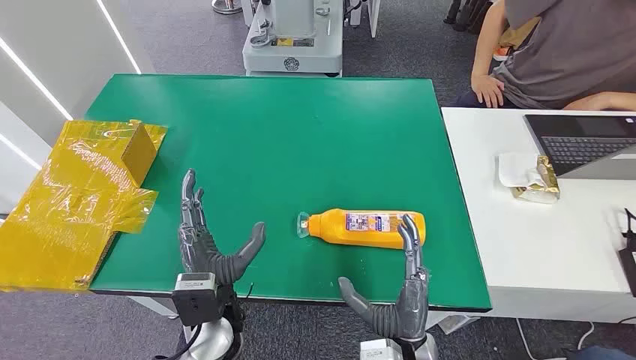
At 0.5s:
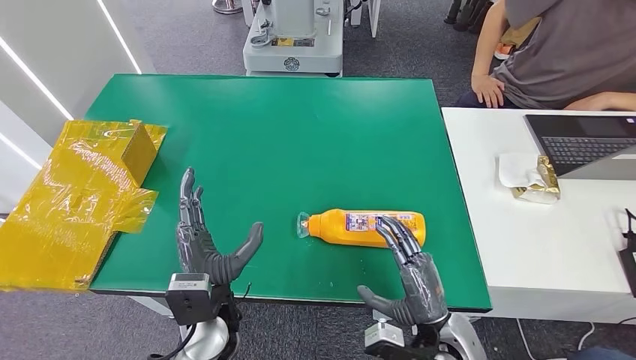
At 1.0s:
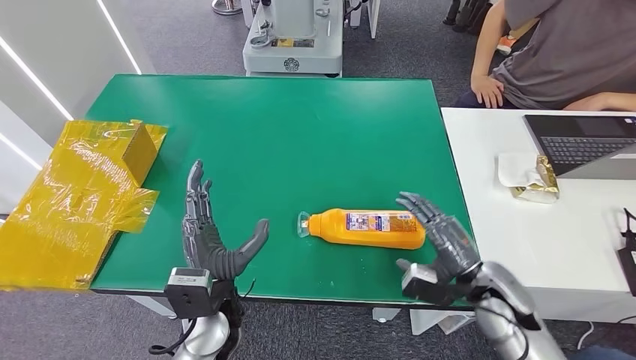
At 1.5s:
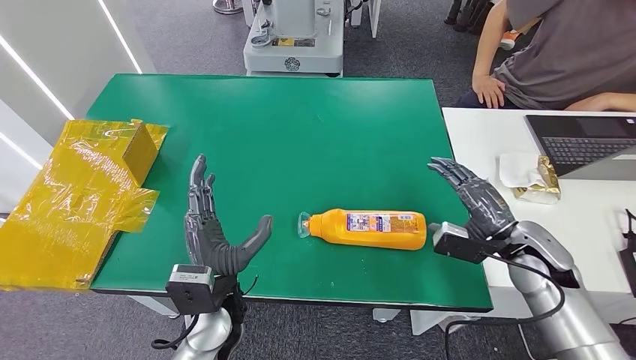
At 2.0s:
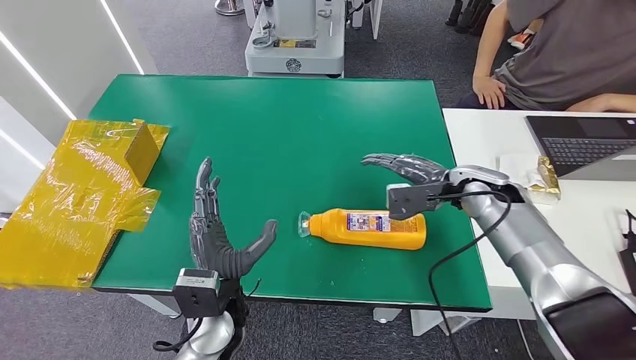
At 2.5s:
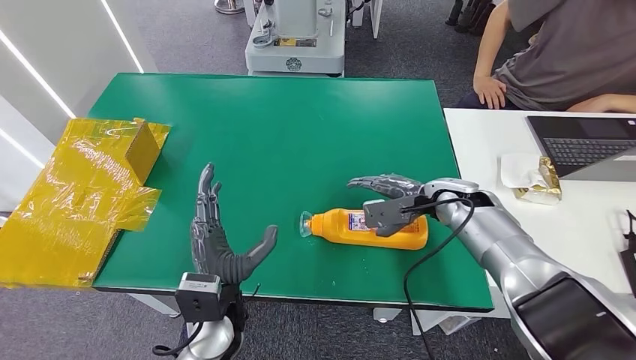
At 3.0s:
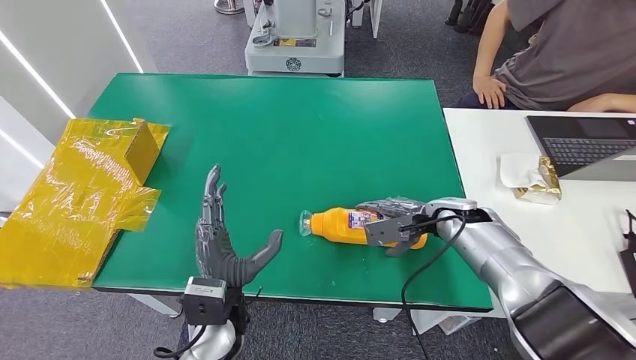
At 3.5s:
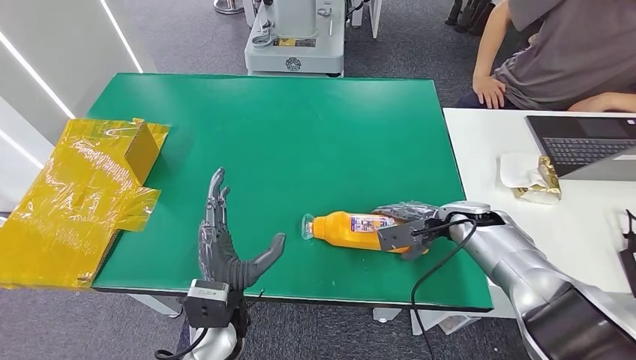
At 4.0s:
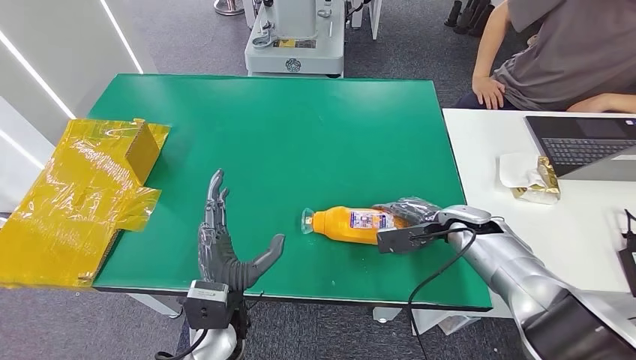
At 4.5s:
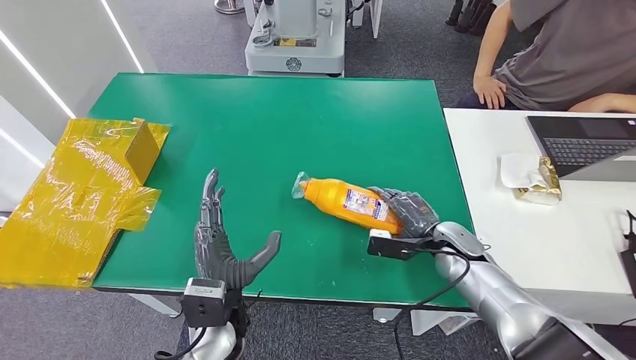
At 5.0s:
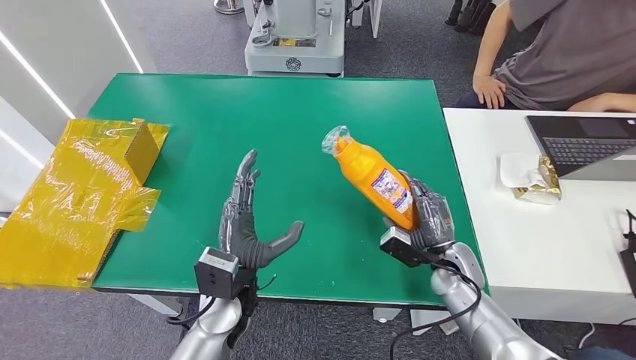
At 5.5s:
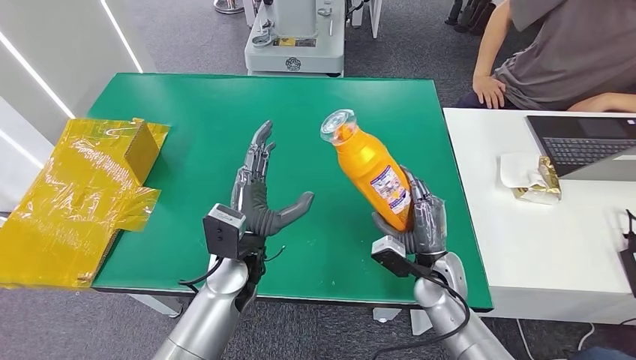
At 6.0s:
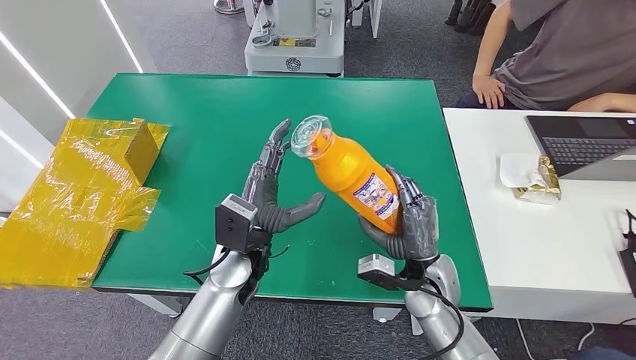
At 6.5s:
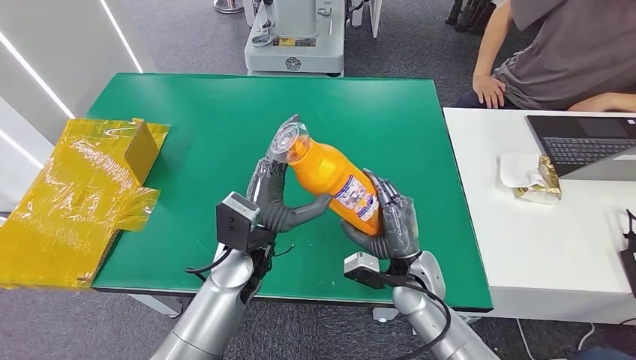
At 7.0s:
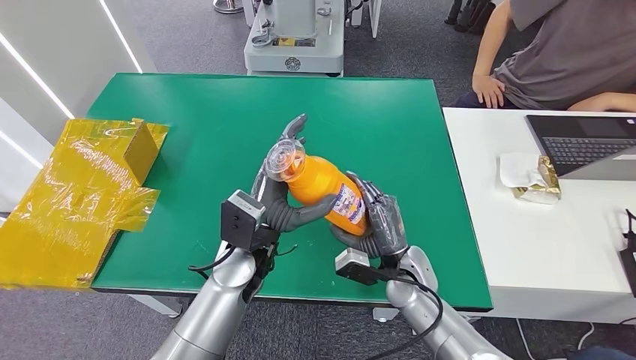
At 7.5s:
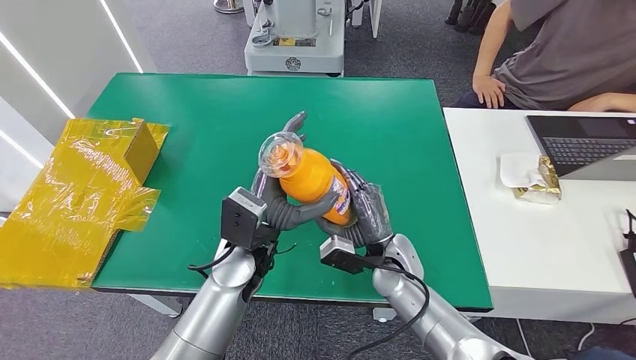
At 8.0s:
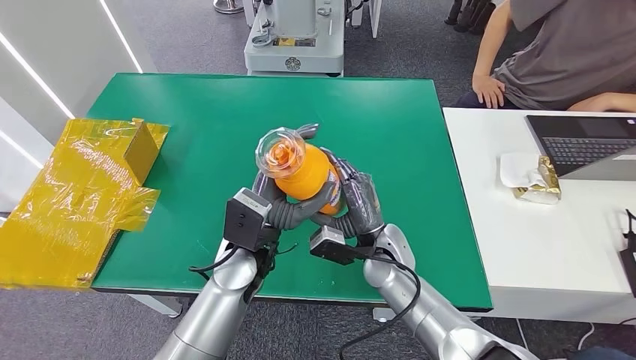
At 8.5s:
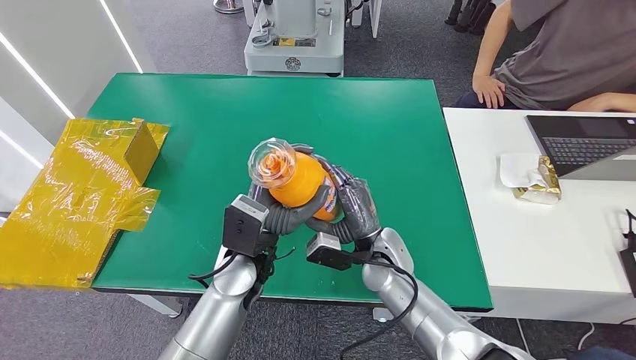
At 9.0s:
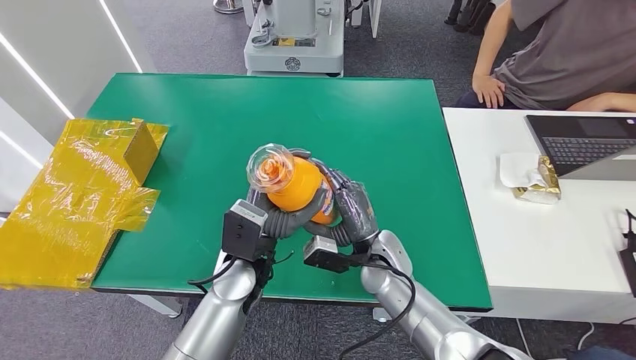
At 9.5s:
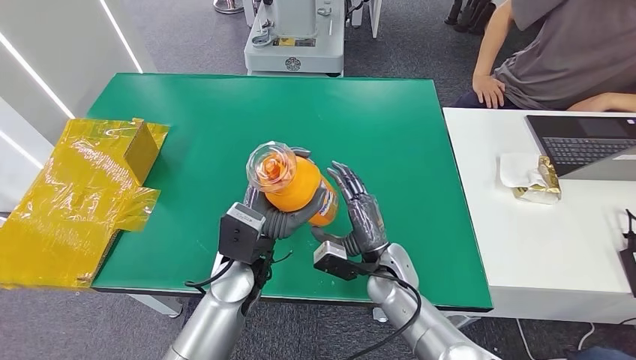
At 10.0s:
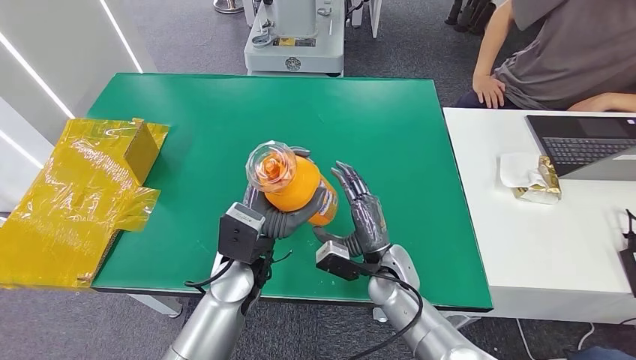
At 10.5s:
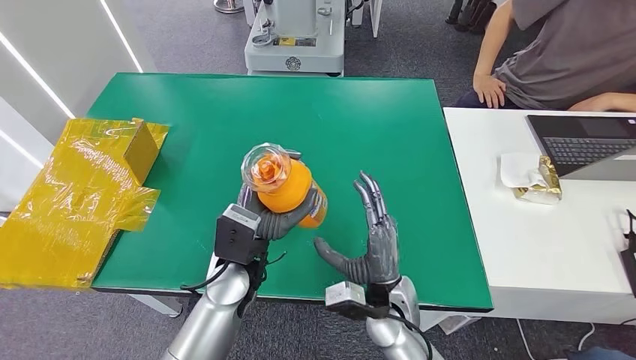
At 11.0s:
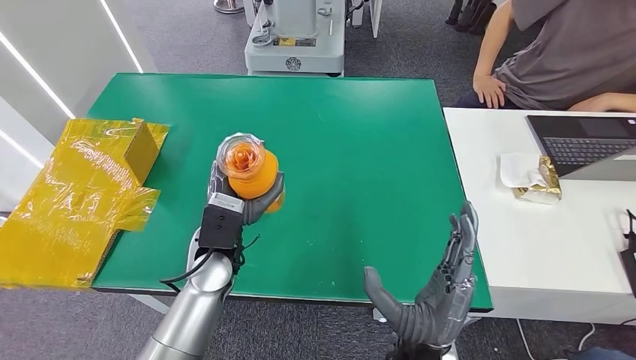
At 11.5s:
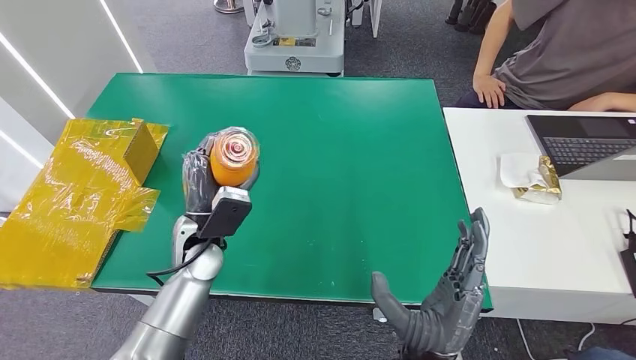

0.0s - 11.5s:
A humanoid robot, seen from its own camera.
Step, 0.0s - 5.0s: Pick up the bottle from the table.
2.0s - 4.0s: The right hand goes about 10 cm downward.
4.0s - 6.0s: The left hand goes about 10 cm forward. Meanwhile the right hand heads to the left and backward, covering about 15 cm.
6.0s - 7.5s: The right hand moves to the left, approximately 5 cm.
7.5s - 9.5s: The hands stay close to where they were, moving slightly.
9.5s - 11.5s: The right hand goes roughly 20 cm backward and upward, while the left hand moves to the left, roughly 10 cm.

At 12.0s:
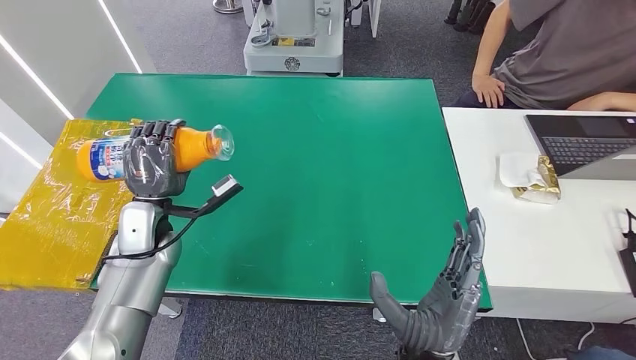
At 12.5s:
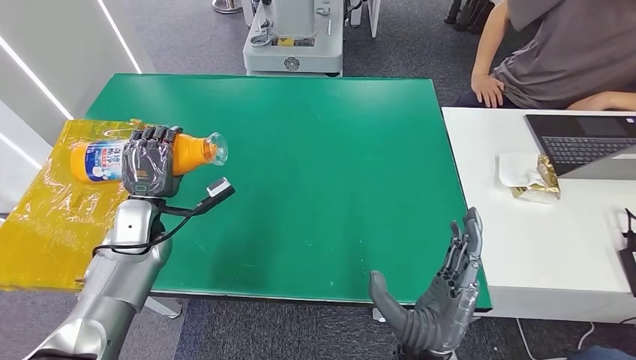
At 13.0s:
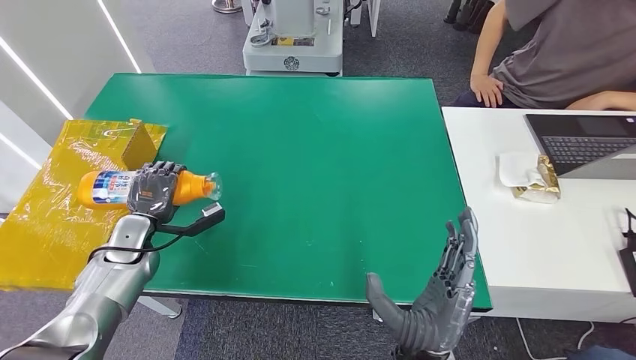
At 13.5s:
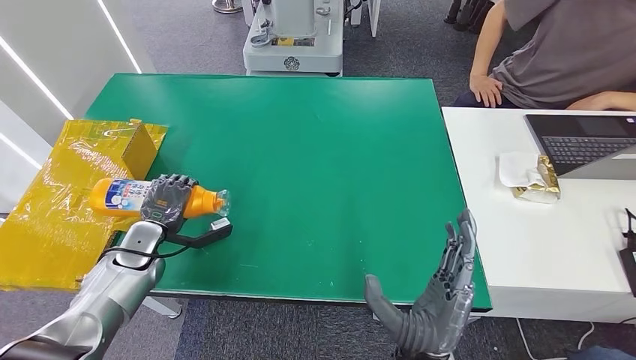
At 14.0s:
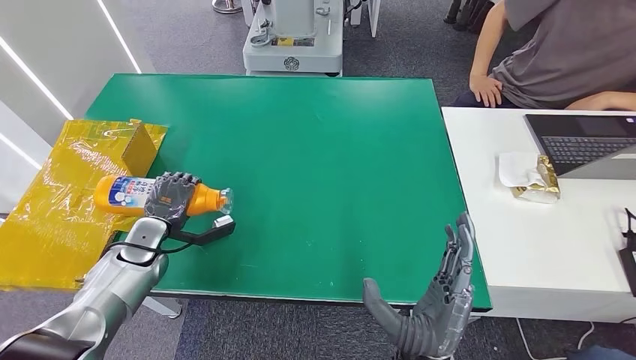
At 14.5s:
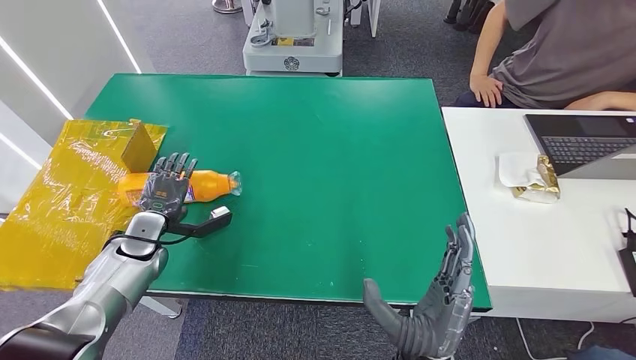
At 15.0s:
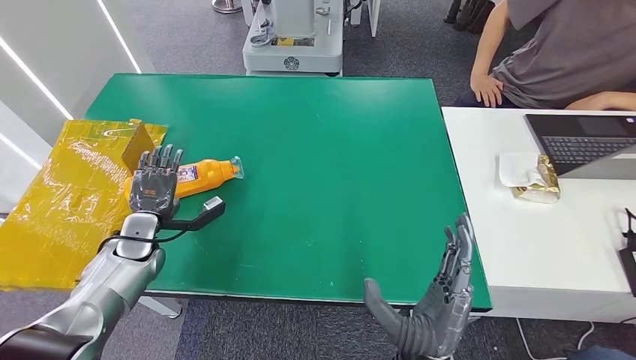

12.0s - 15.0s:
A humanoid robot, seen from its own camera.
Step, 12.0s - 15.0s: Turn the bottle to the front side.
12.0s - 13.5s: The left hand moves to the left and downward, about 10 cm.
13.5s - 15.0s: The hands stay close to where they were, moving slightly.
